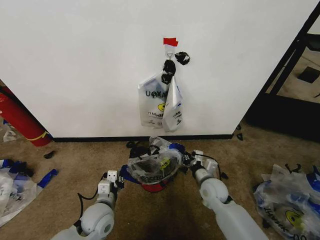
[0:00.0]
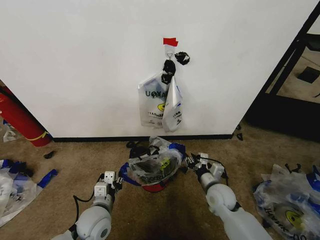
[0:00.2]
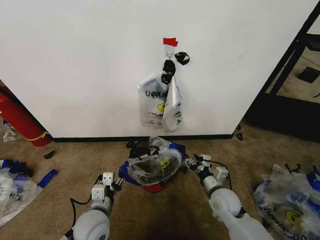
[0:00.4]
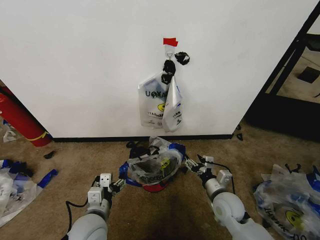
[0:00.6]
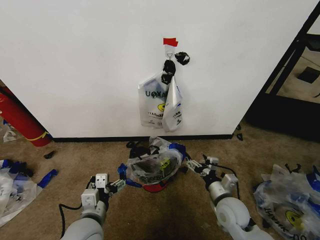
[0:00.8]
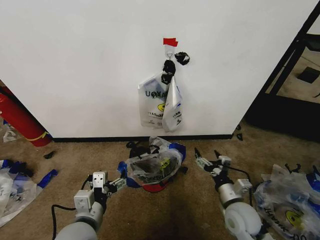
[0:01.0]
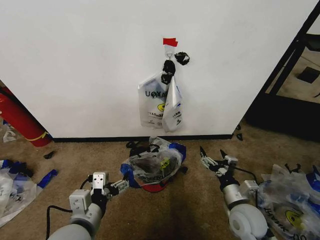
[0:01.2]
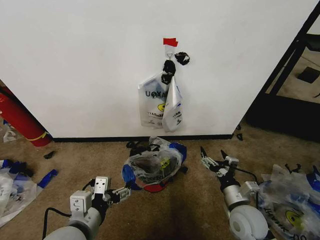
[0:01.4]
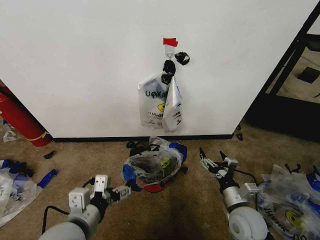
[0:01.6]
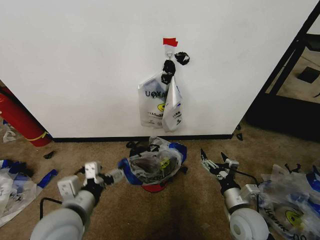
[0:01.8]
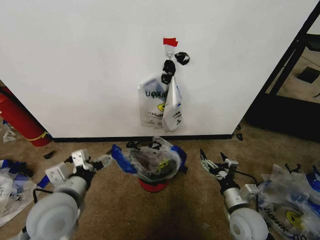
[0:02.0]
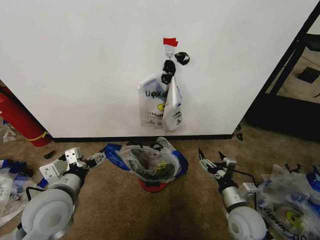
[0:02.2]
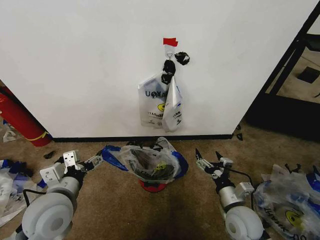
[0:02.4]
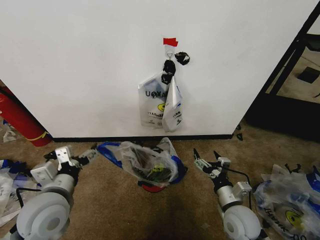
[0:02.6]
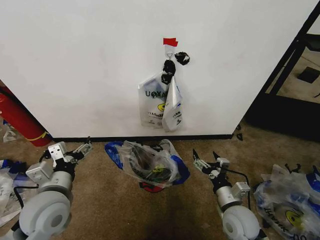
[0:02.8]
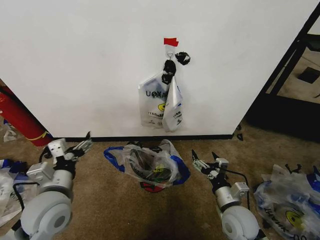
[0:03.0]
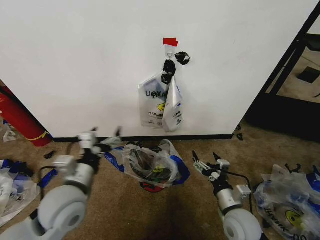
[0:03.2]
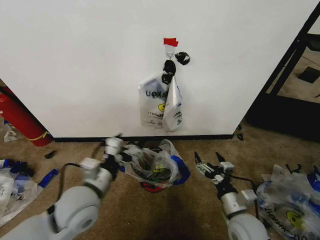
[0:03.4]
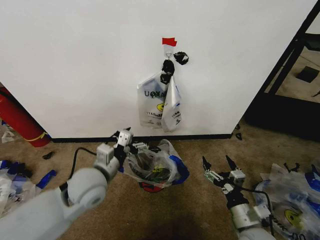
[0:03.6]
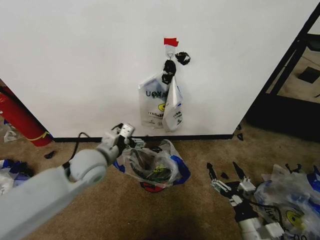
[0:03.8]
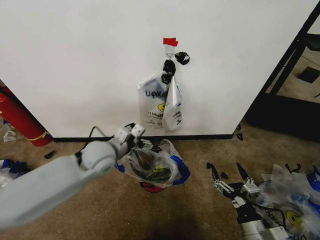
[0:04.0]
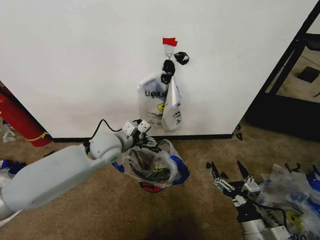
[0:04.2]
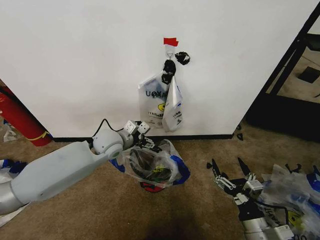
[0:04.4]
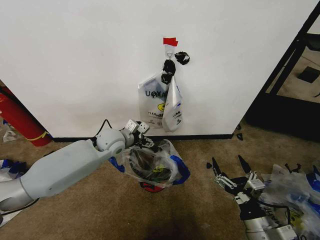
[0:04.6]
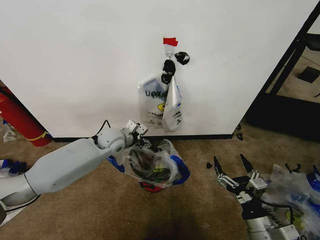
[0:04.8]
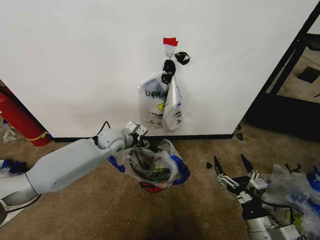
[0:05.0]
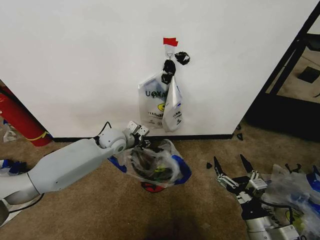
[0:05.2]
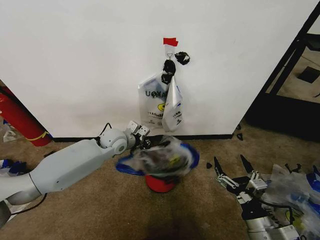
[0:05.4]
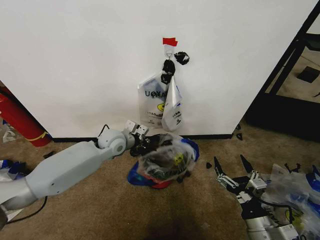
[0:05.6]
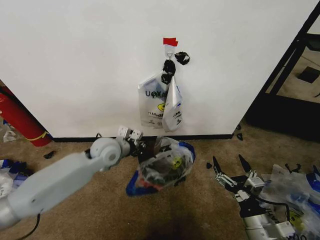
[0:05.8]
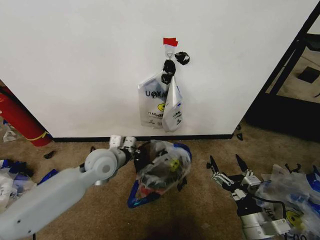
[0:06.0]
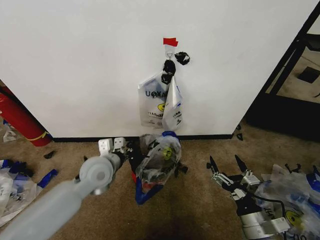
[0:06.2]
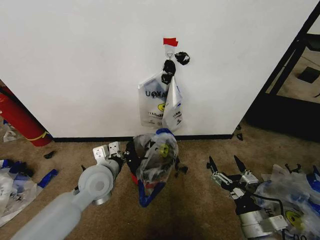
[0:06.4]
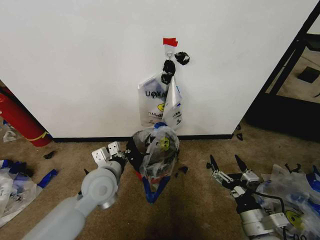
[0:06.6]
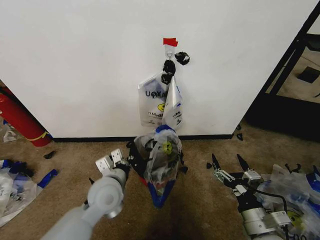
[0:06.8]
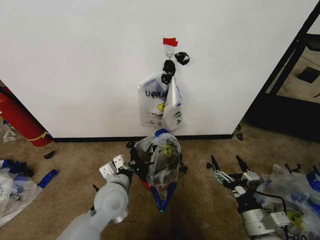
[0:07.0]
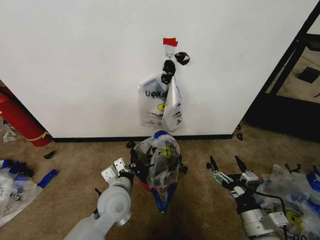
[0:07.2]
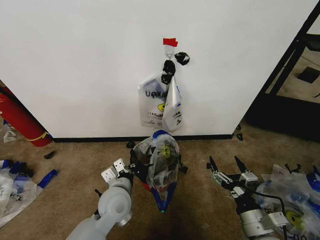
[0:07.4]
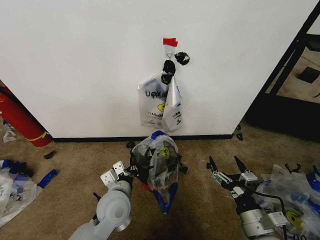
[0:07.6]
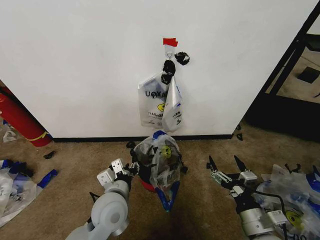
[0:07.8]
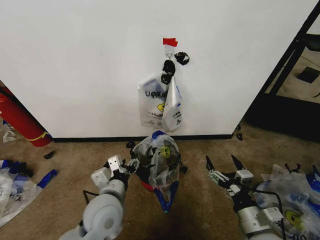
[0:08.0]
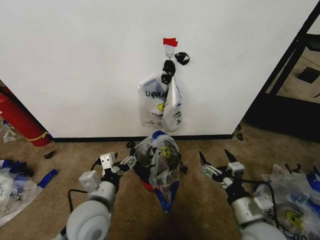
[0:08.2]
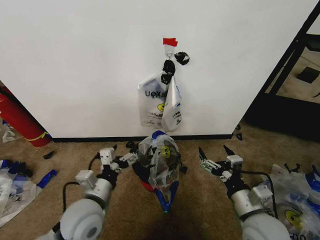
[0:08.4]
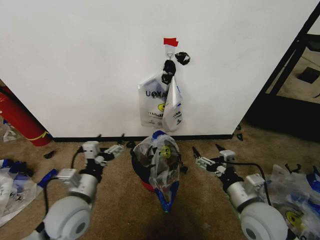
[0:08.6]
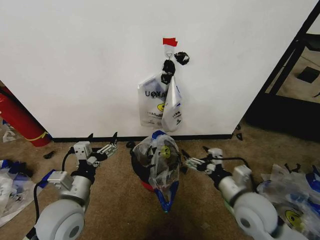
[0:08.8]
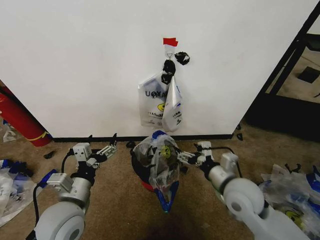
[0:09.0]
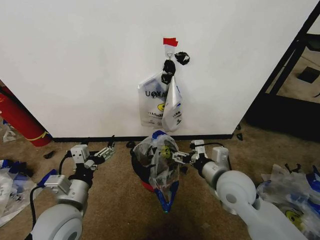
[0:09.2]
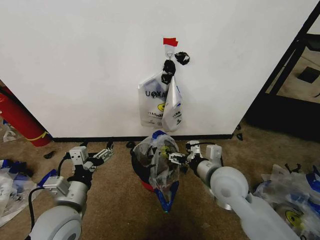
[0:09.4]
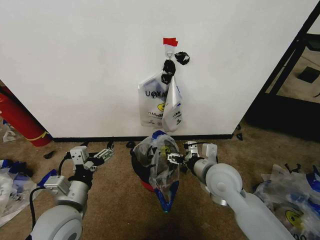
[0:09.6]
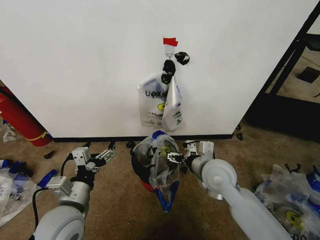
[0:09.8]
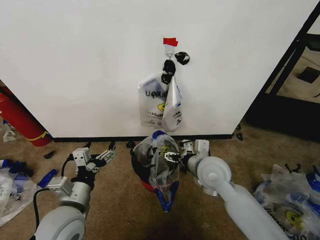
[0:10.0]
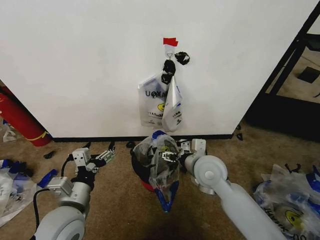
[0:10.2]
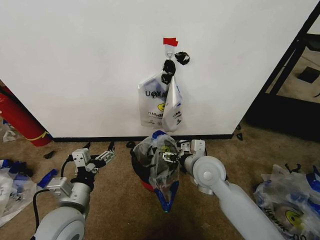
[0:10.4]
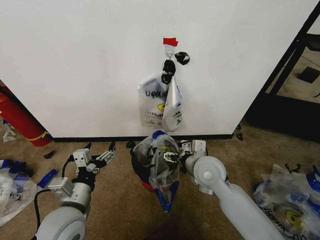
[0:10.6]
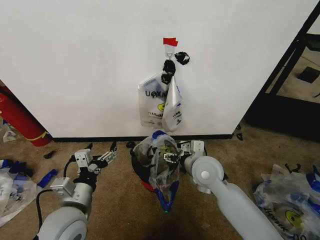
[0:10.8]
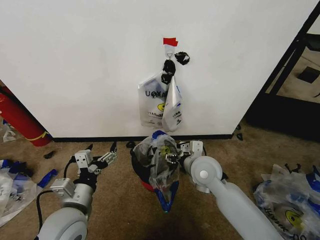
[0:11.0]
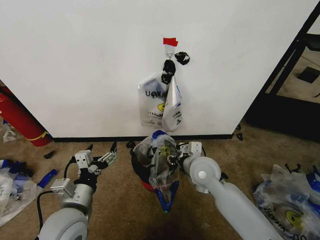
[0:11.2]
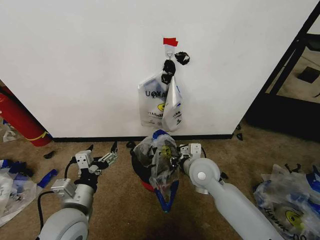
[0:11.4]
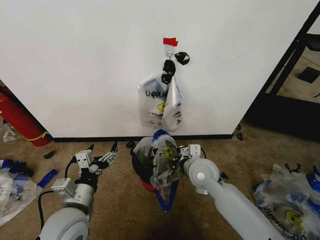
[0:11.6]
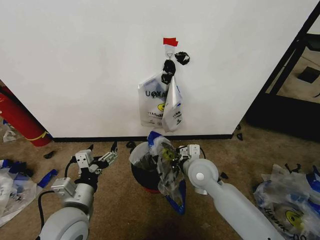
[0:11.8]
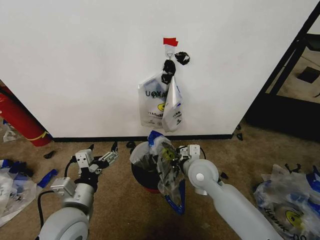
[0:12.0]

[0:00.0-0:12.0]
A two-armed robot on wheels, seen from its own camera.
Task of the whole recording: Pick up the garbage bag from the wall and place it over the trash bin.
0.0 to 1.6 s: The left gripper is displaced upward and backward by roughly 20 cm, and opens its fingers; the right gripper shifts some 15 cm backward, to the right and upward, and opens.
1.6 to 3.0 s: The left gripper travels forward and to the left by about 10 cm.
3.0 to 4.4 s: The right gripper is displaced backward by roughly 10 cm, while the left gripper shifts about 25 cm forward and to the right.
4.4 to 6.0 s: The left gripper is displaced backward by approximately 5 cm, and closes its fingers.
6.0 to 7.6 s: The left gripper travels backward, downward and to the right by some 15 cm.
7.6 to 9.0 s: The right gripper heads forward, upward and to the left, covering roughly 15 cm; the left gripper moves to the left, upward and backward, about 15 cm, and opens up.
9.0 to 10.4 s: The right gripper heads to the left and forward, covering some 10 cm.
10.4 to 12.0 s: The right gripper closes its fingers.

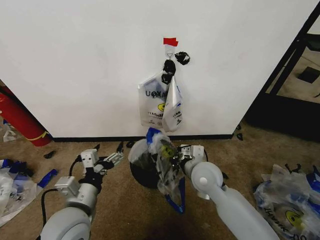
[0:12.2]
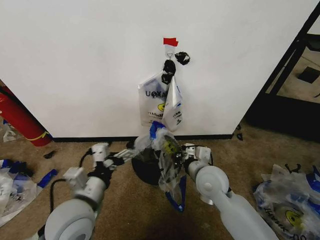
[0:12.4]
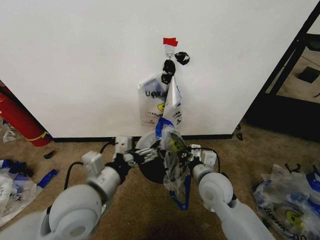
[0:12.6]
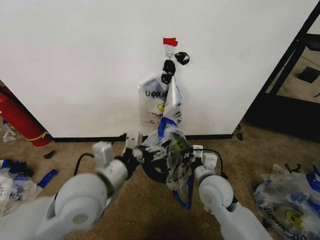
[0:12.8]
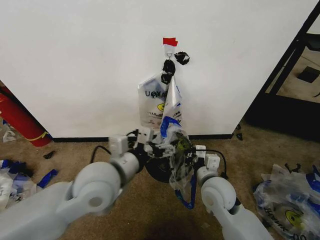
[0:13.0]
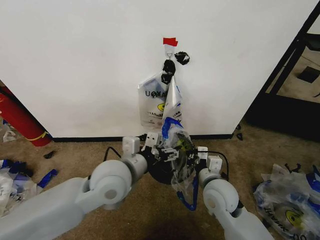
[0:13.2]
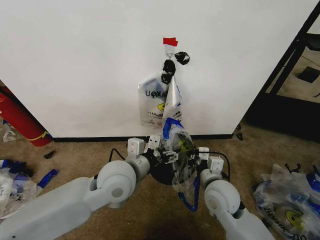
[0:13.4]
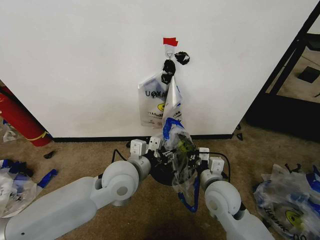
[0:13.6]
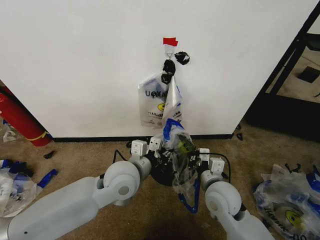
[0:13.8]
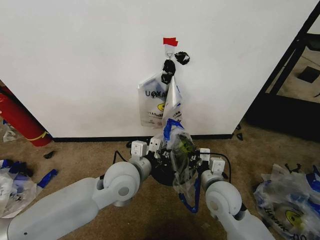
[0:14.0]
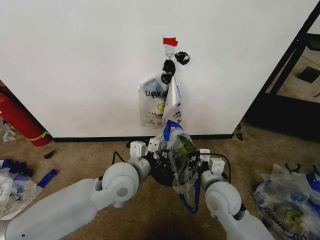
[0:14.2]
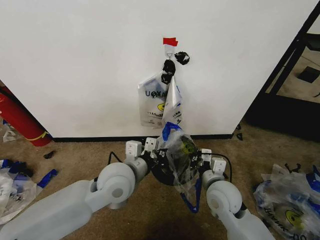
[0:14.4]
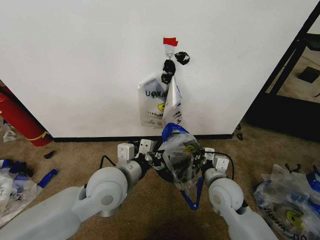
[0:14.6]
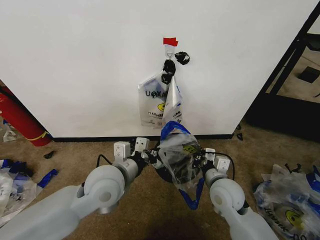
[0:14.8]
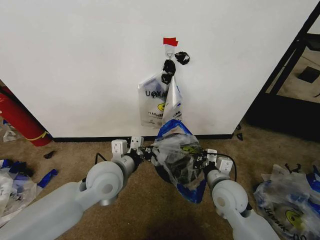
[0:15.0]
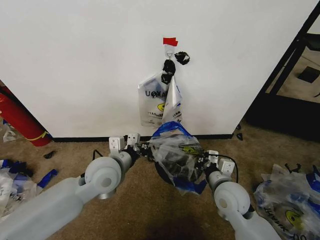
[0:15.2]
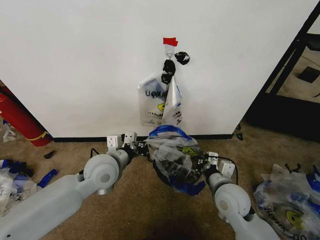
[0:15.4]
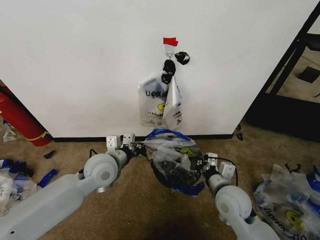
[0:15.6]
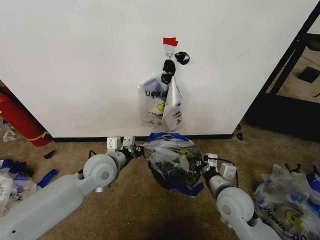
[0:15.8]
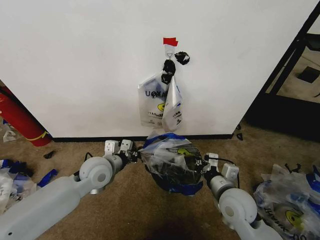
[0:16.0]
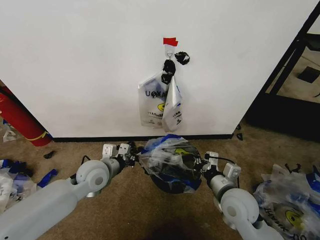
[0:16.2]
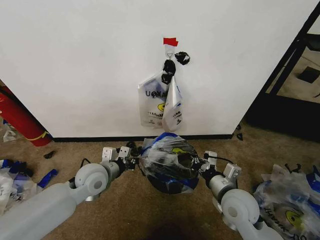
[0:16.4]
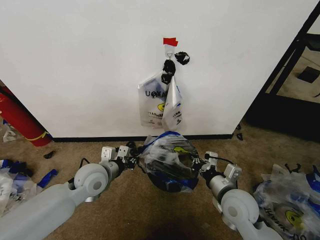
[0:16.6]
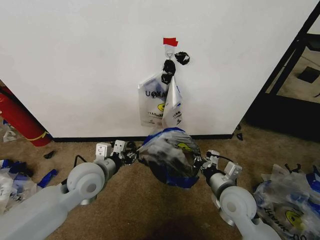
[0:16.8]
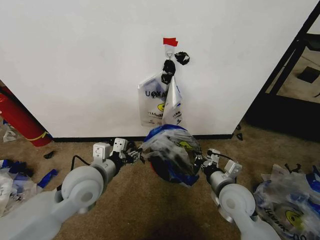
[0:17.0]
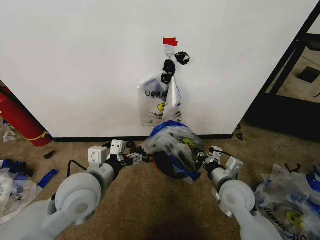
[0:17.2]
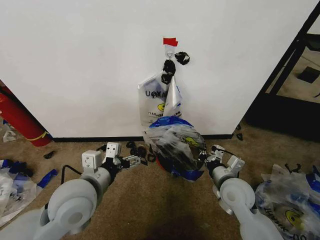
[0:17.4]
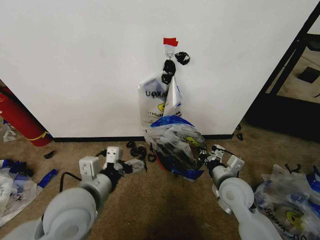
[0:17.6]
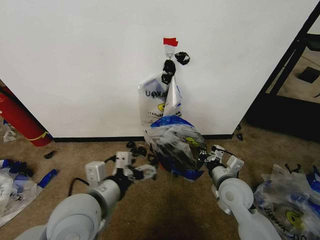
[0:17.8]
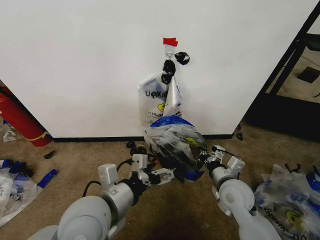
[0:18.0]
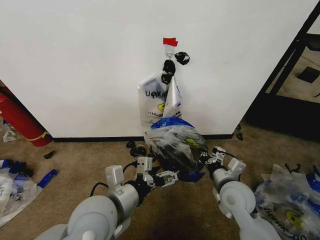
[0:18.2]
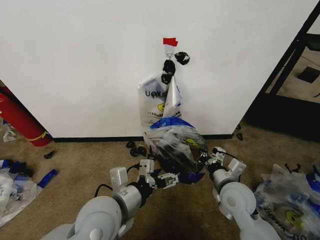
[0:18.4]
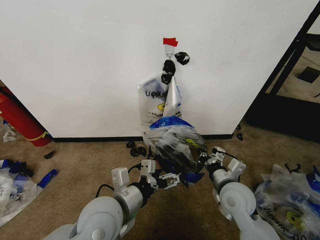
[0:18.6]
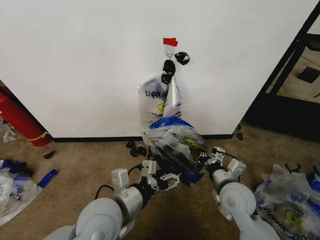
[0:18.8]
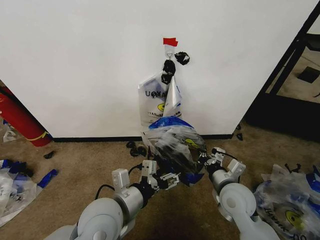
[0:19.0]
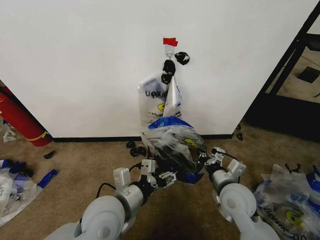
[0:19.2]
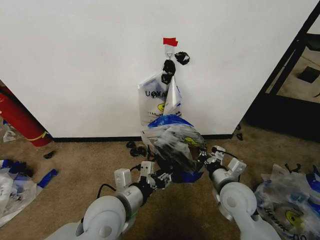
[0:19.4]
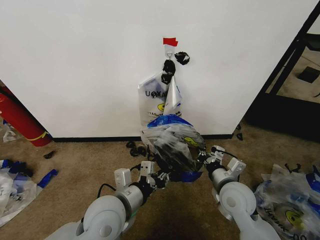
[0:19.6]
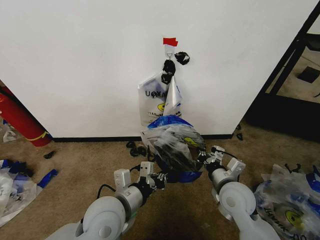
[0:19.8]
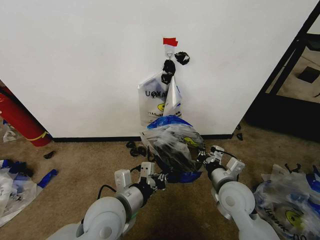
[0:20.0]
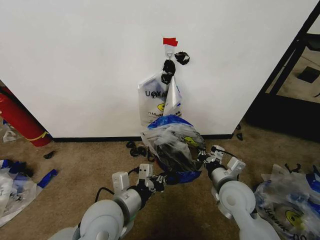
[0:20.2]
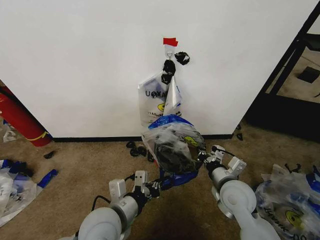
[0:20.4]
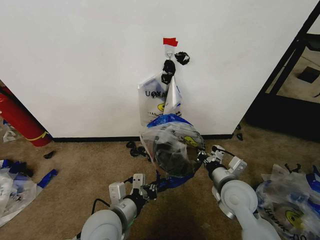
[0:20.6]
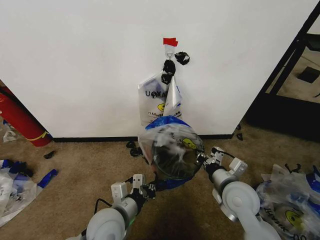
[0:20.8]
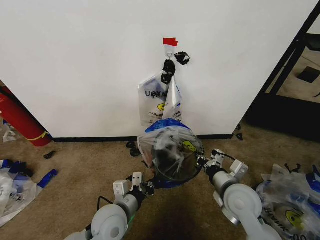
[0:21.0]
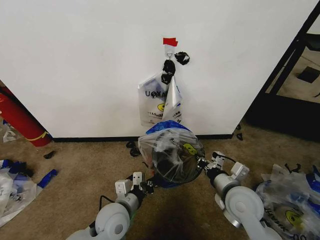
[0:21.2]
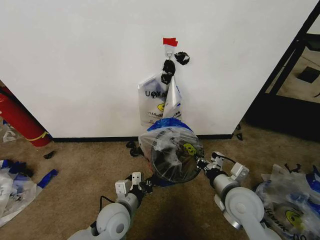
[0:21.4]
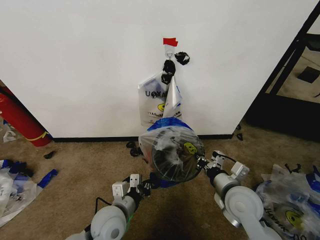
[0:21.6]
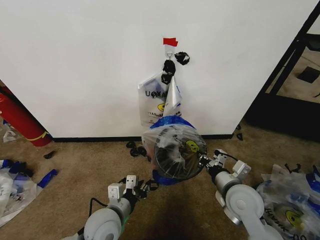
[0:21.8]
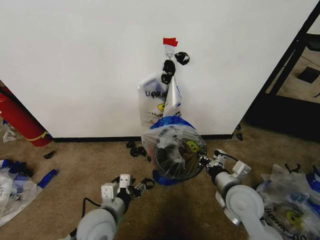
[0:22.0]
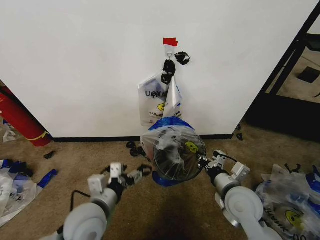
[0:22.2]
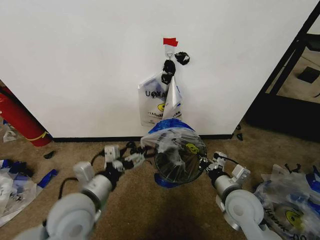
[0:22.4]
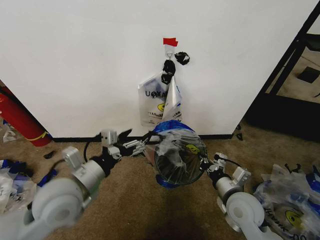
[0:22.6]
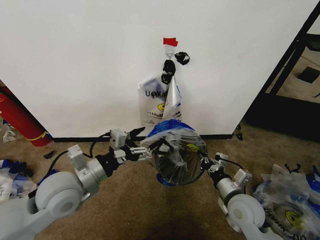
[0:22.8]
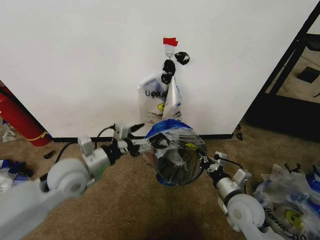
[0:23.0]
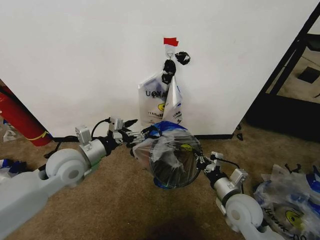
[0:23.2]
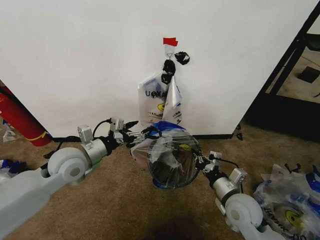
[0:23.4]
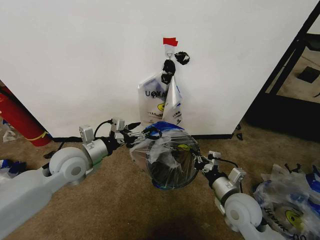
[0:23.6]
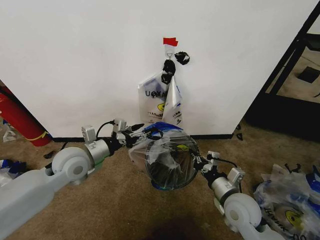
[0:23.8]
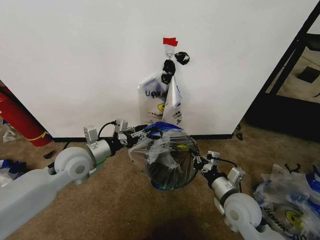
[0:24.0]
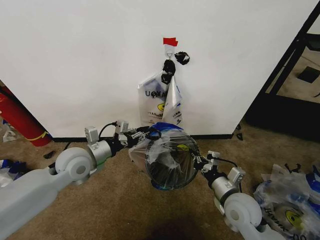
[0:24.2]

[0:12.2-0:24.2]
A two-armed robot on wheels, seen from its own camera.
Task of the whole recording: Pick up the garbage bag from the wall and place it over the trash bin.
12.2 to 13.8 s: The right gripper is displaced backward by approximately 5 cm. The left gripper goes approximately 15 cm to the right and forward, and closes up.
13.8 to 15.2 s: The left gripper moves to the left, approximately 5 cm.
15.2 to 16.6 s: The left gripper goes some 10 cm to the left and downward.
16.6 to 18.2 s: The left gripper goes approximately 15 cm backward, upward and to the right, and opens.
18.2 to 19.8 s: The left gripper closes its fingers.
19.8 to 21.2 s: The left gripper is displaced downward by approximately 10 cm.
21.2 to 22.6 s: The left gripper shifts some 20 cm upward and to the left, and opens its fingers.
22.6 to 24.2 s: The left gripper moves forward, about 10 cm, and closes.
